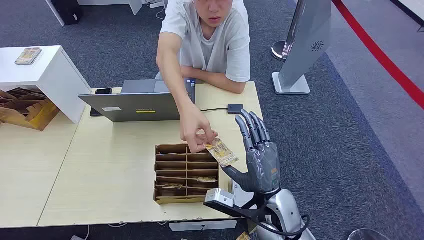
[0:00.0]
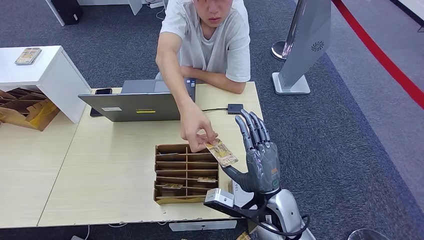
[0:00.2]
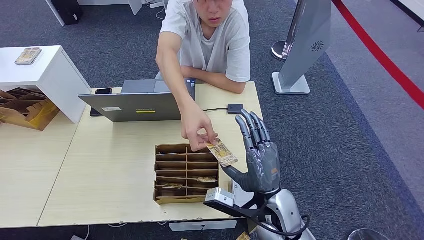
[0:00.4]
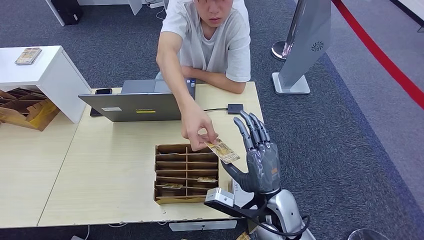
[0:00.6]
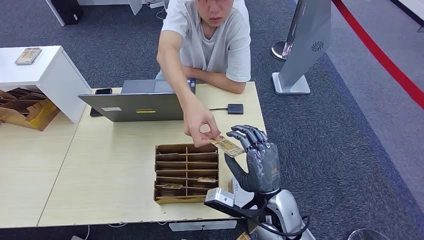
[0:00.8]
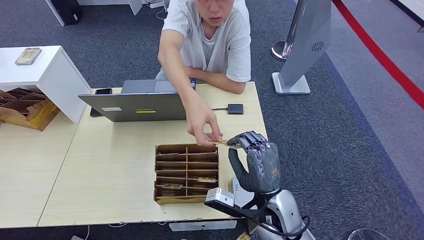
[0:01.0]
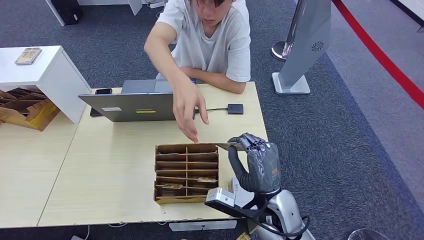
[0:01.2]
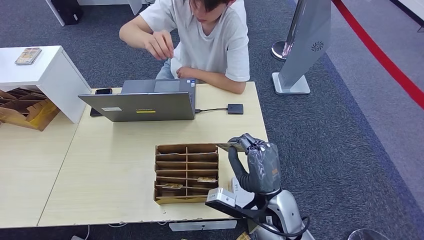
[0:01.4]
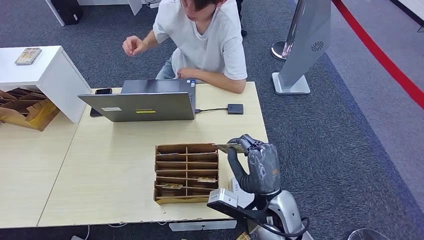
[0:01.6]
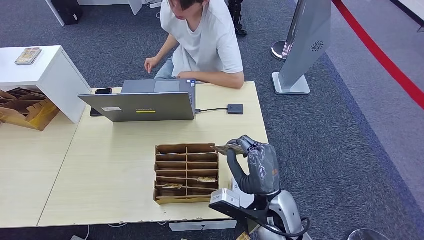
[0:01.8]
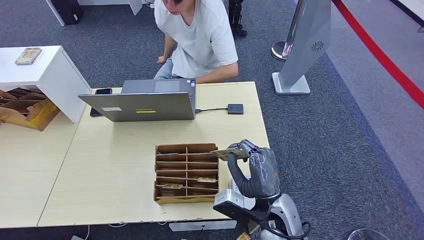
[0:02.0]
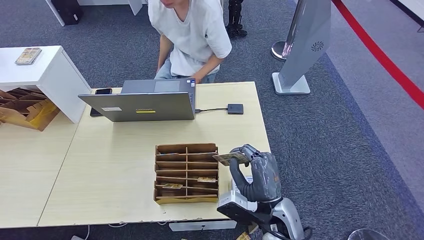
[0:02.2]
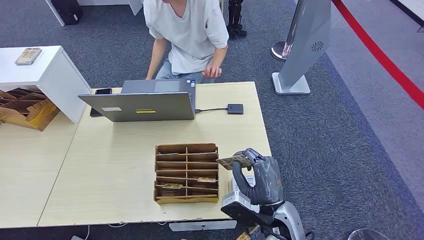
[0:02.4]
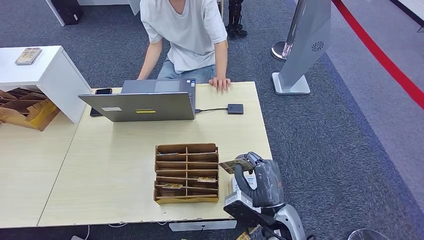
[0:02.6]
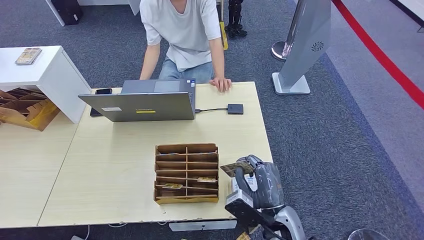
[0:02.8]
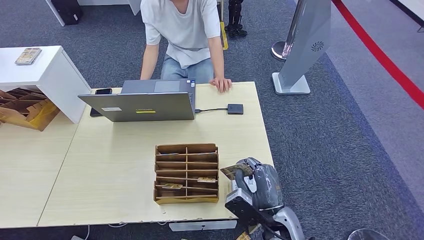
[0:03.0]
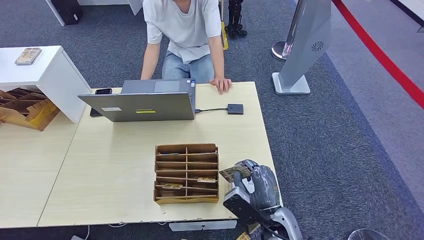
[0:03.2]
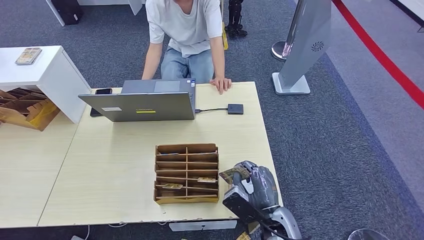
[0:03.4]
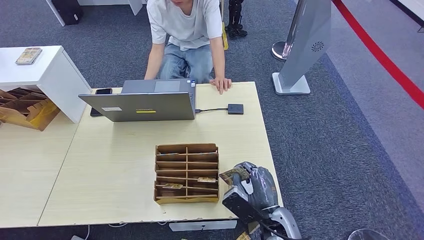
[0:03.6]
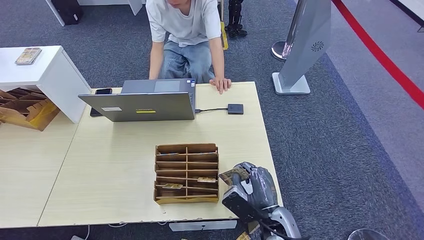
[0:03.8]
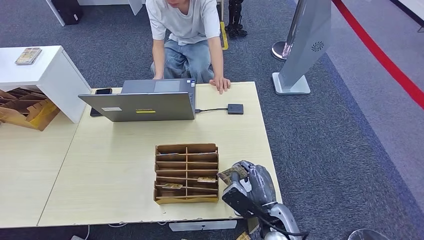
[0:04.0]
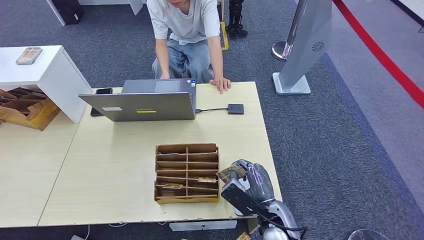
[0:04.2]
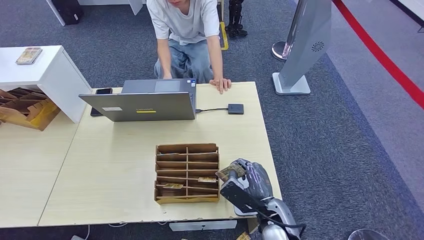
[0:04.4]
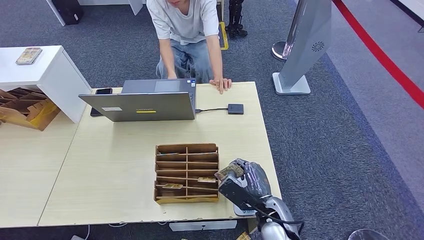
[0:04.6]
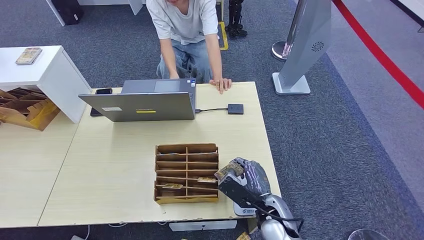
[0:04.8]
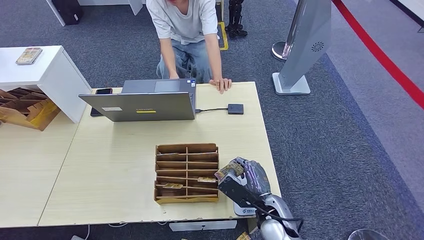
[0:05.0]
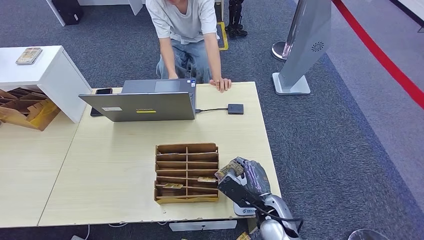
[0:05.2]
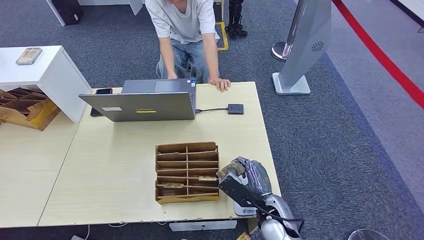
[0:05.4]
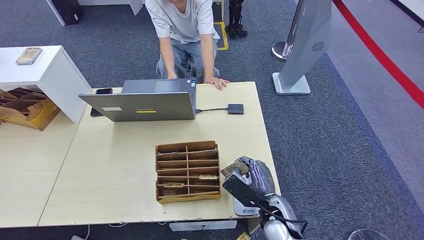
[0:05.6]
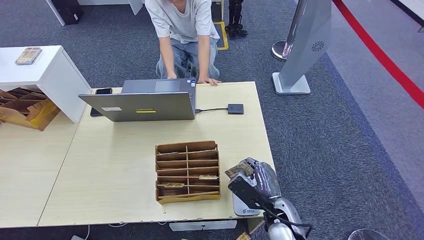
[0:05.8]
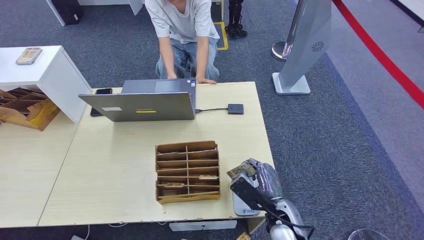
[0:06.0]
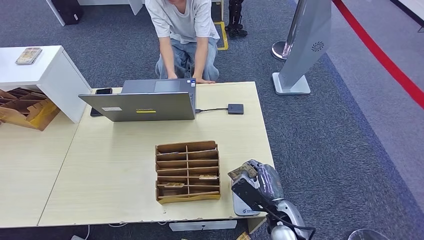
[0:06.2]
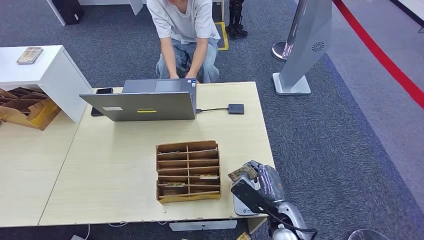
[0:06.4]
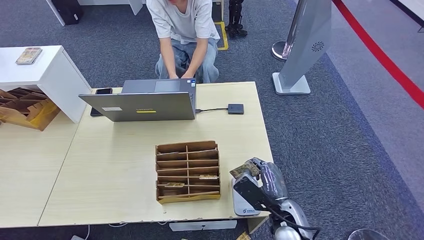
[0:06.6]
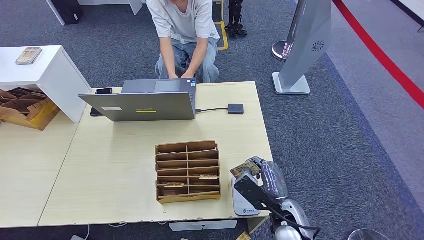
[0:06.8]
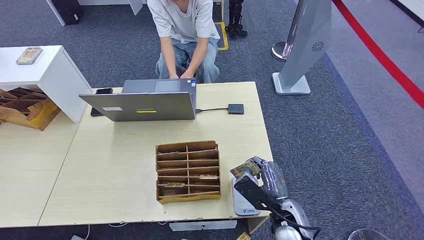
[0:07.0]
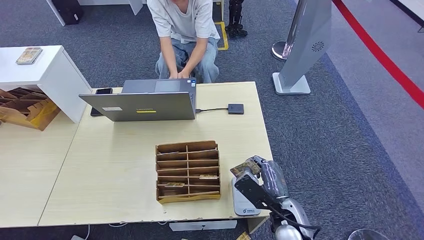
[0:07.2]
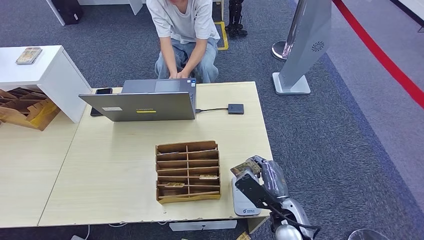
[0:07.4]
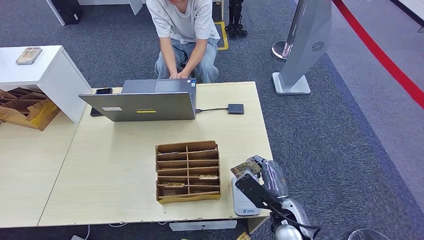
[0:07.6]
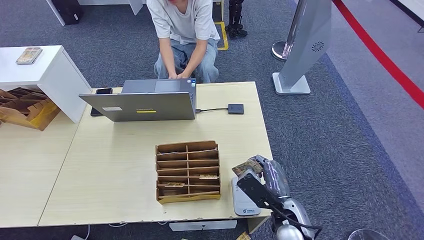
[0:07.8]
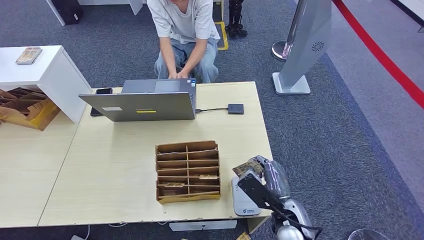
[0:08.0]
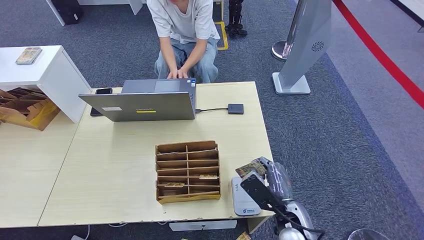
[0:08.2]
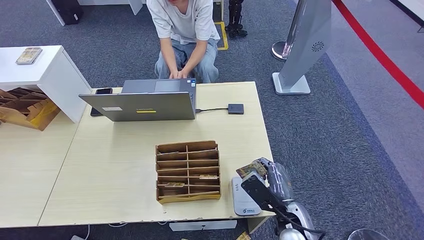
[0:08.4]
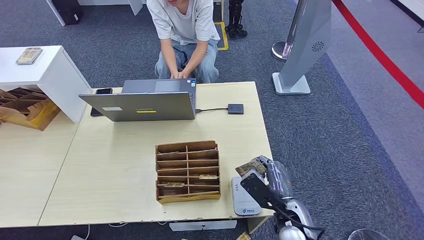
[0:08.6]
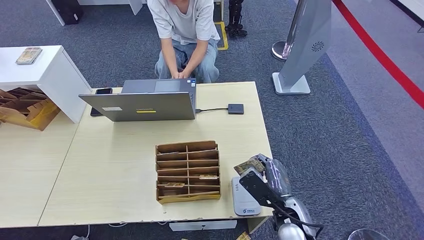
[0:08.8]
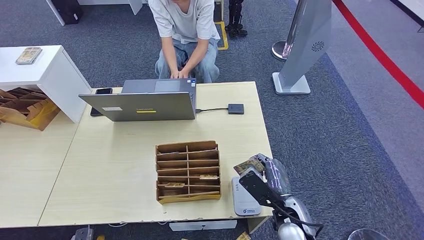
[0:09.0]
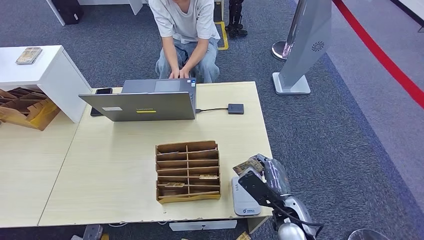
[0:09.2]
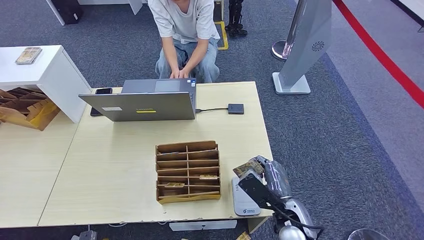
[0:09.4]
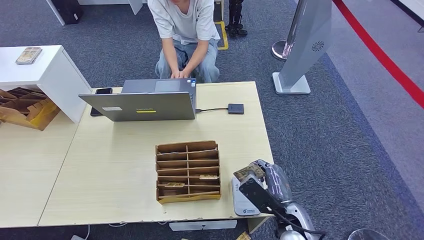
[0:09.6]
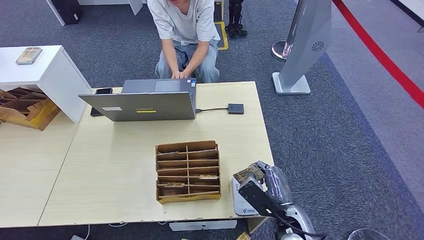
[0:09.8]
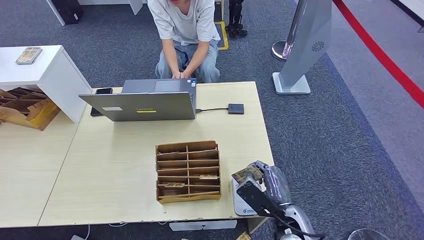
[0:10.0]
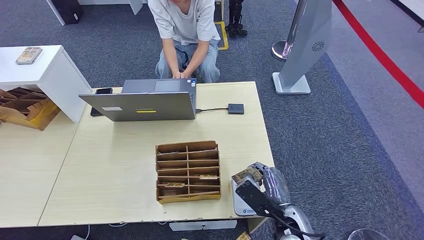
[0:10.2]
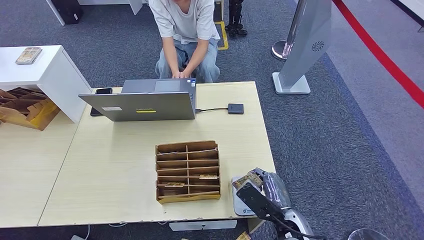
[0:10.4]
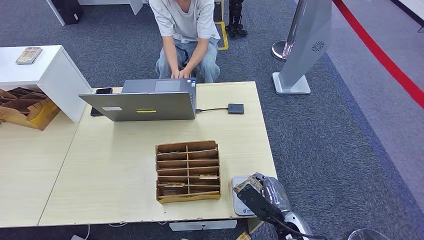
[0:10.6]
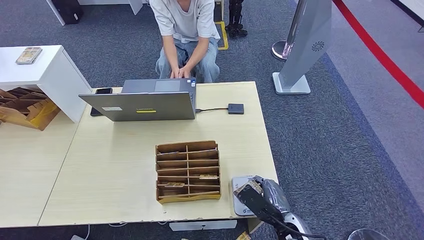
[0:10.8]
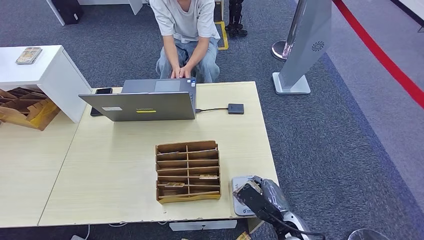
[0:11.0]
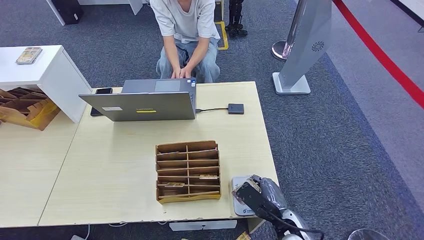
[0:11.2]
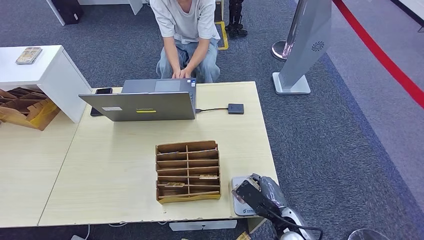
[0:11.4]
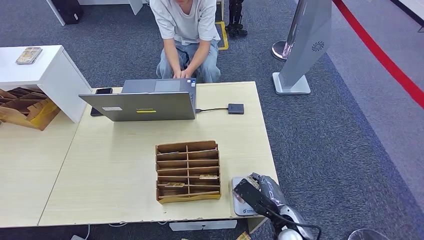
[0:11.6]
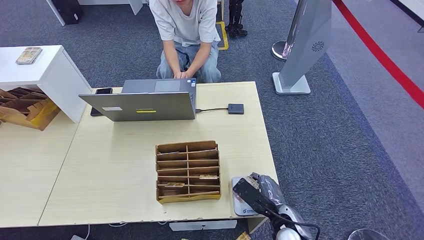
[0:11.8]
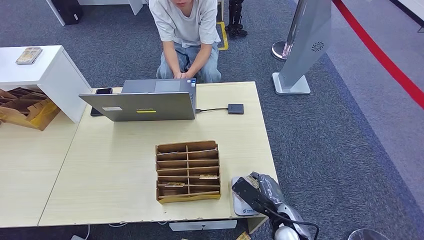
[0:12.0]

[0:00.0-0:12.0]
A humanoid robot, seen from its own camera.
Step, 0:00.0 to 0:02.0: Take the ID card from the person's hand.
Step, 0:02.2 to 0:07.4: Place the ID card on the card reader.
0:01.6 to 0:03.0: The right hand is displaced downward by about 5 cm.
0:03.0 to 0:04.4: The left hand moves backward and to the left, some 10 cm.
0:04.4 to 0:06.0: The hands make only small movements.
0:06.0 to 0:07.6: The left hand goes roughly 10 cm forward.
0:07.6 to 0:09.0: The left hand moves to the left and forward, about 10 cm.
0:09.0 to 0:10.4: The left hand moves to the right and backward, some 10 cm.
0:10.4 to 0:12.0: There are only small adjustments of the hands.

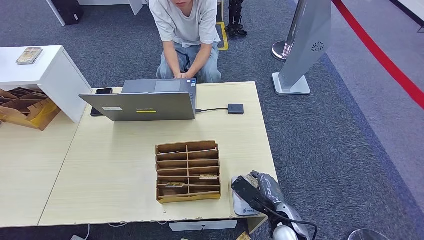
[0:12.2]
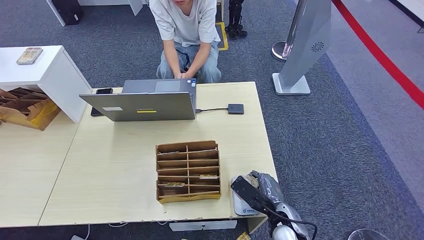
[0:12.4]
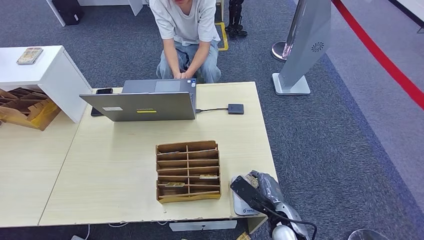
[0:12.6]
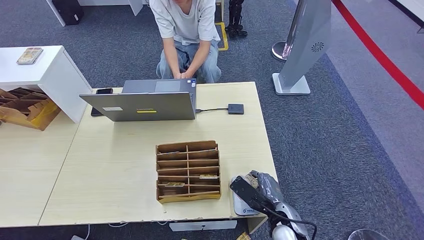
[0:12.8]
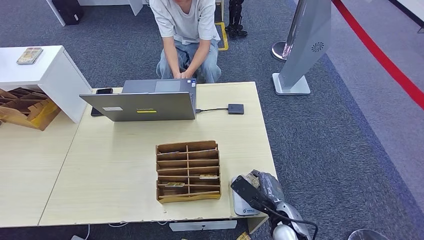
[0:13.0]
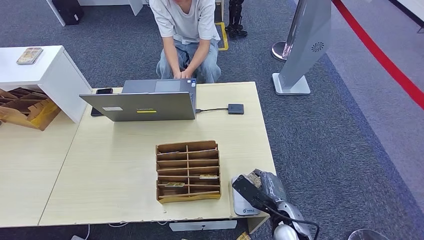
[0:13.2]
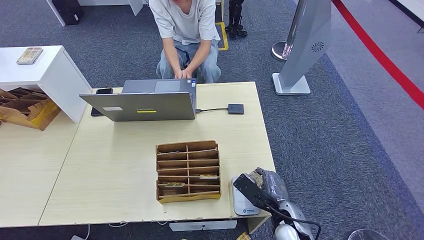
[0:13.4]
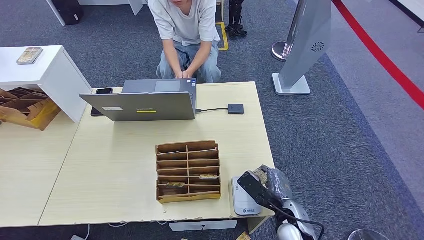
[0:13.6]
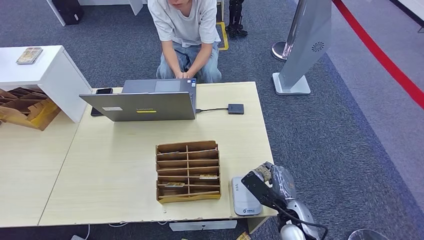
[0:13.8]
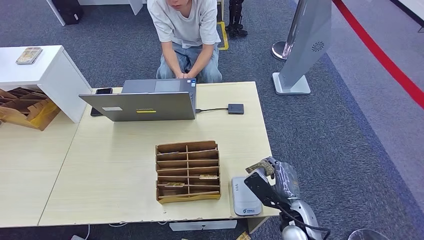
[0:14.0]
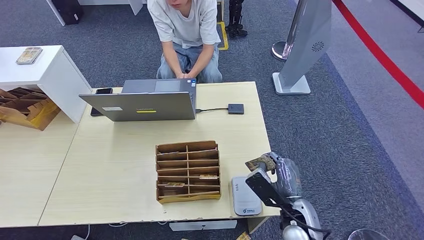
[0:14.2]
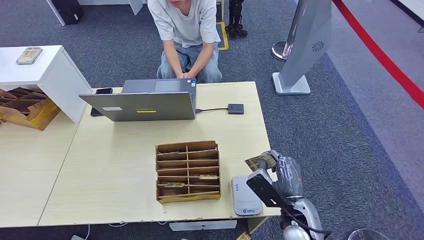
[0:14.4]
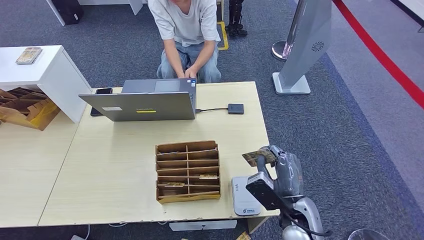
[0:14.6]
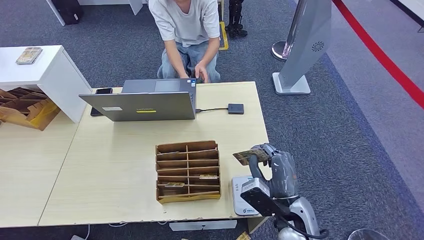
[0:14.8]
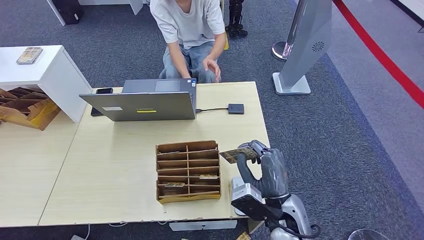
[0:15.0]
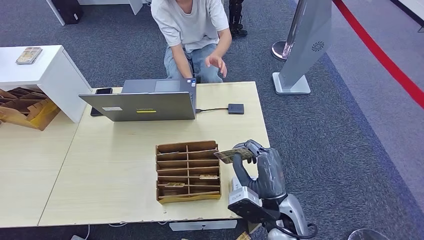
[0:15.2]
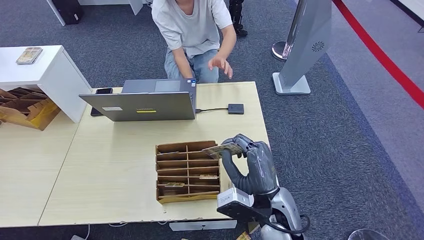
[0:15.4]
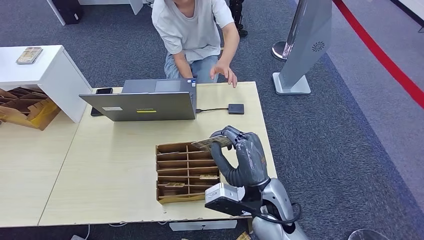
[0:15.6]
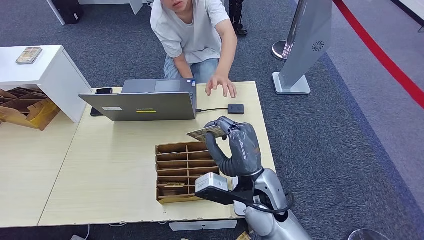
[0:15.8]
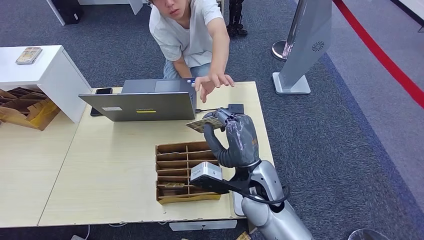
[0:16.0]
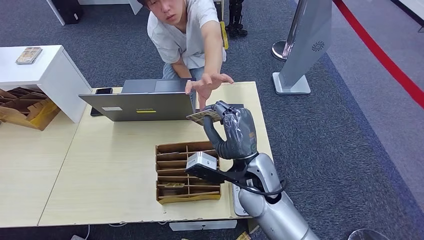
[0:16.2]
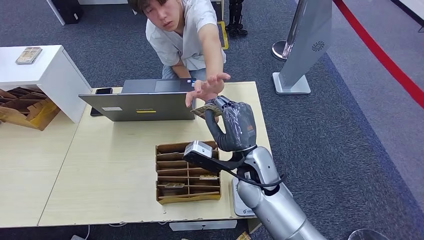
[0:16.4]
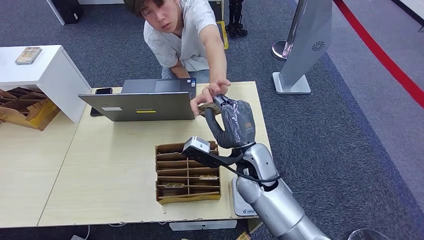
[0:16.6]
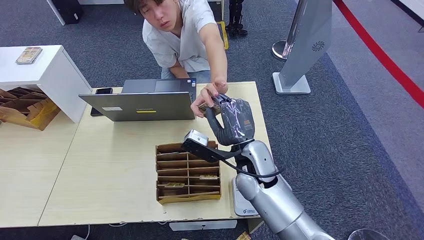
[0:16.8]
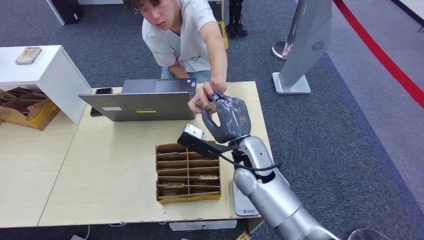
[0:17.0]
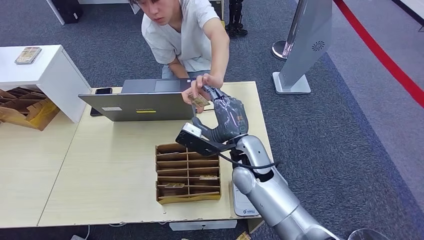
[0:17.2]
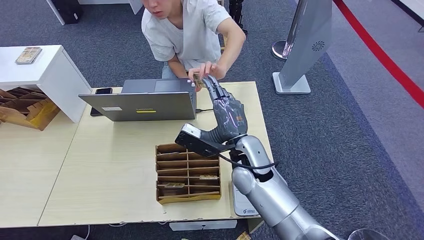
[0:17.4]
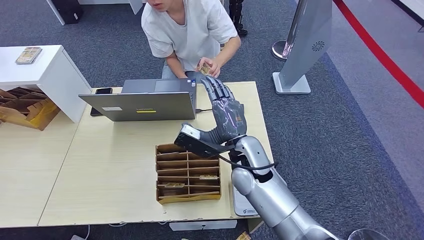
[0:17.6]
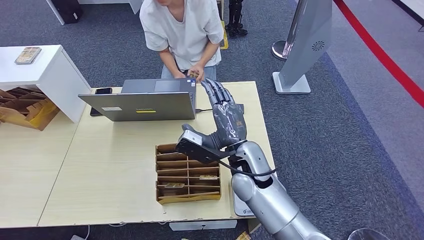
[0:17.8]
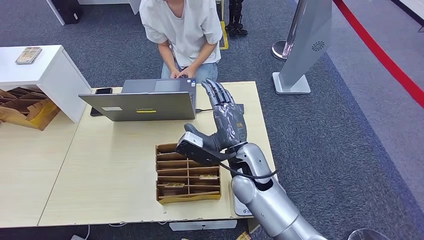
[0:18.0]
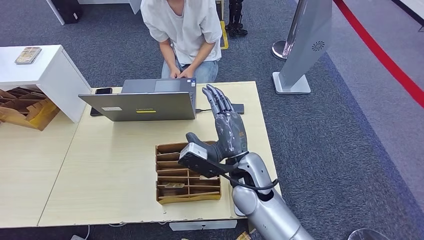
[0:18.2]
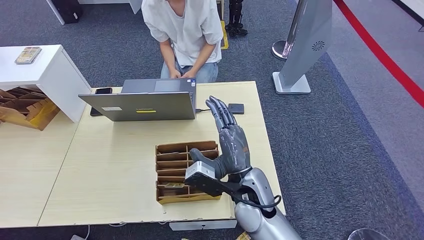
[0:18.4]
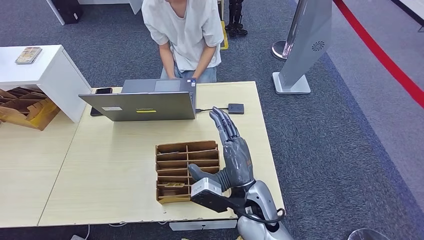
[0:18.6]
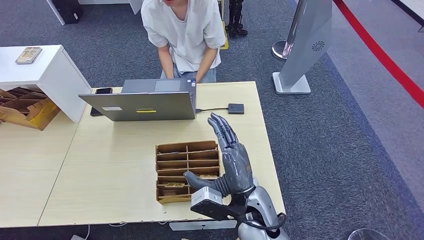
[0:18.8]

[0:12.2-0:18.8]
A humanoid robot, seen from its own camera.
Step, 0:12.2 to 0:17.8: Hand the ID card to the person.
0:12.2 to 0:13.8: There are only small adjustments of the hands.
0:13.8 to 0:15.4: The right hand is displaced upward and to the left by roughly 15 cm.
0:15.4 to 0:17.2: The right hand heads forward, covering roughly 10 cm.
0:17.2 to 0:18.8: The right hand goes about 10 cm backward.
